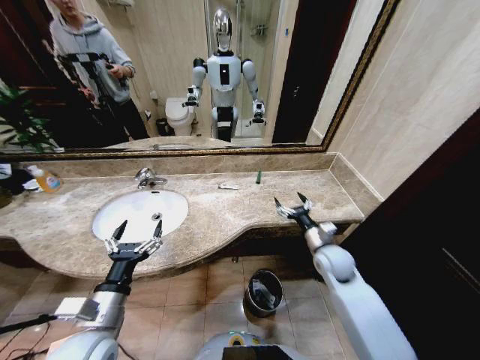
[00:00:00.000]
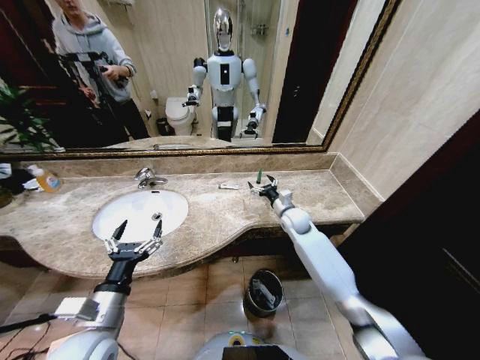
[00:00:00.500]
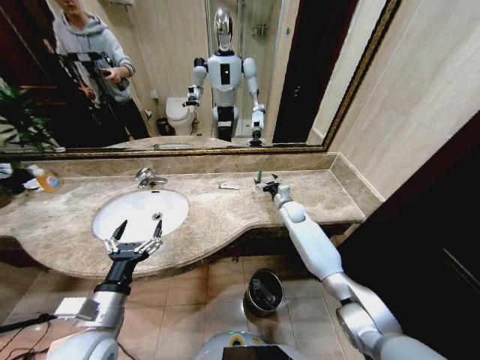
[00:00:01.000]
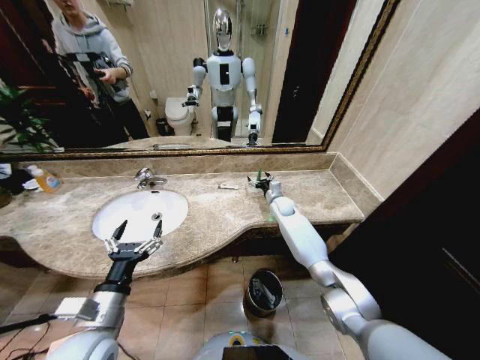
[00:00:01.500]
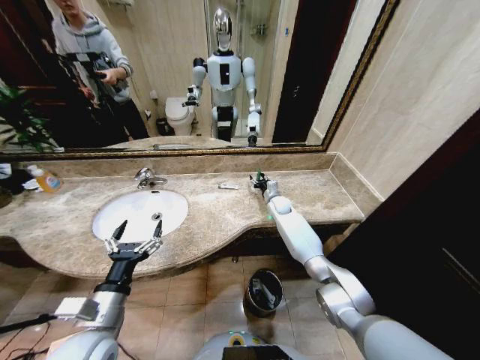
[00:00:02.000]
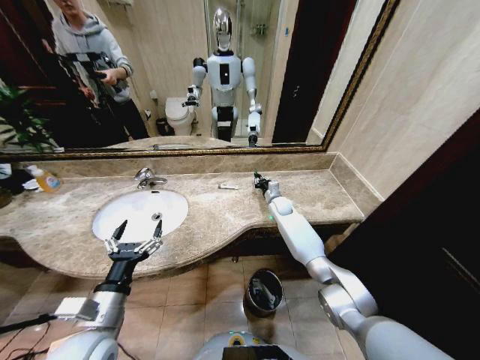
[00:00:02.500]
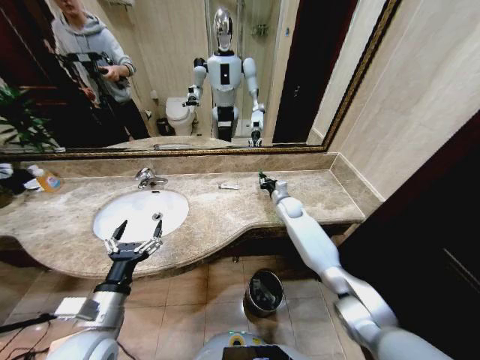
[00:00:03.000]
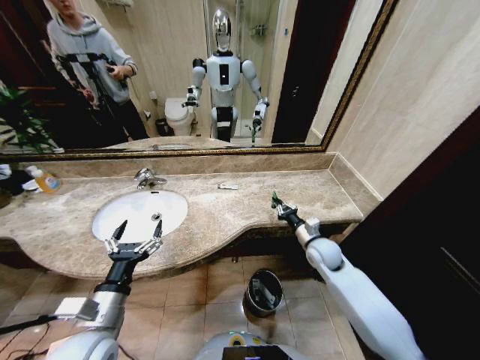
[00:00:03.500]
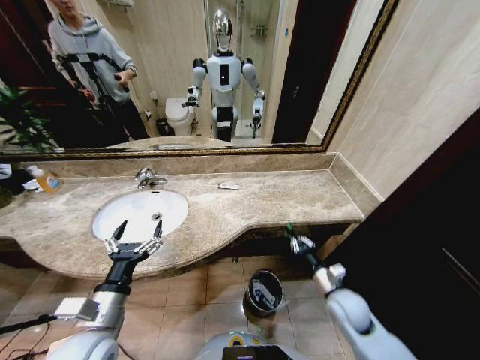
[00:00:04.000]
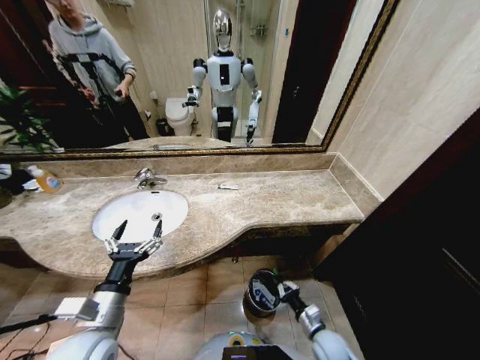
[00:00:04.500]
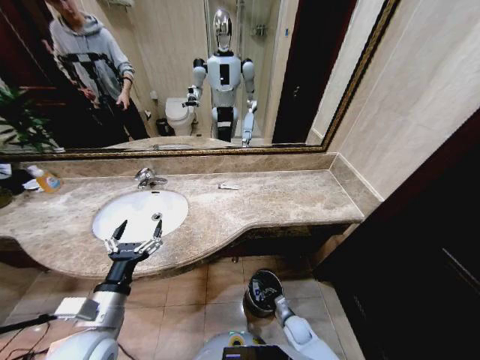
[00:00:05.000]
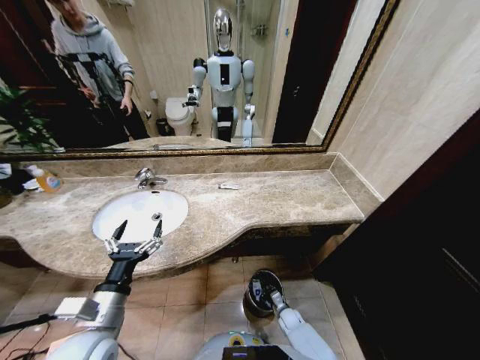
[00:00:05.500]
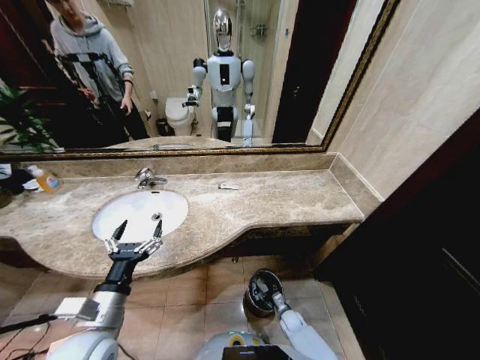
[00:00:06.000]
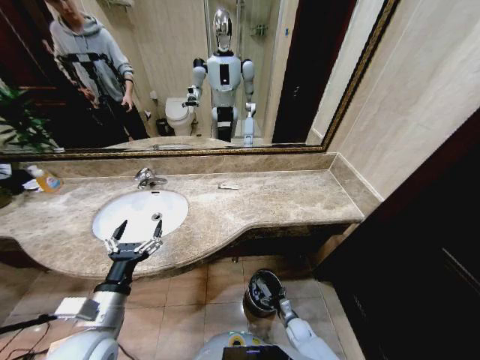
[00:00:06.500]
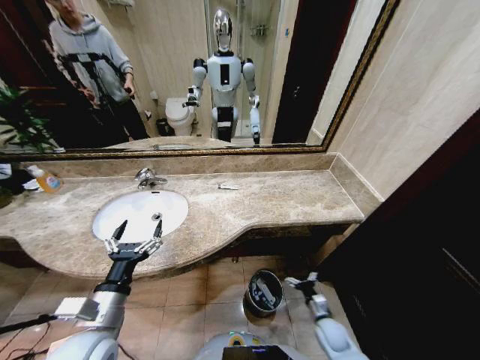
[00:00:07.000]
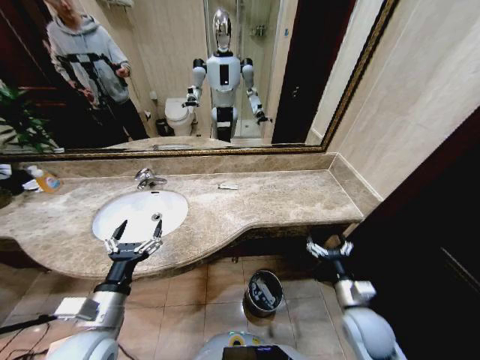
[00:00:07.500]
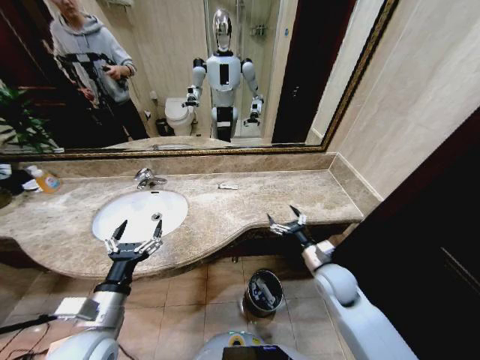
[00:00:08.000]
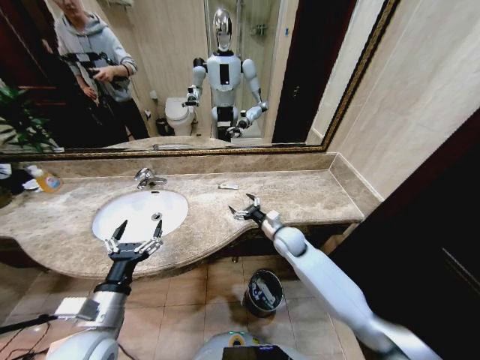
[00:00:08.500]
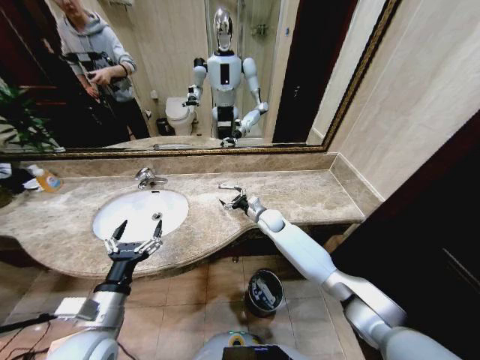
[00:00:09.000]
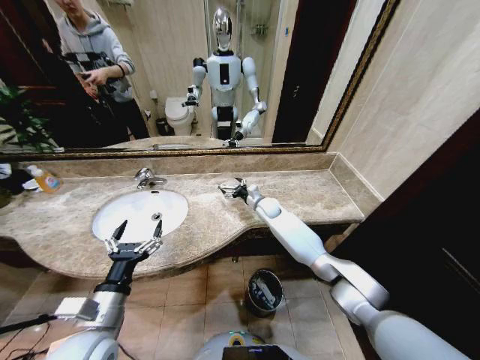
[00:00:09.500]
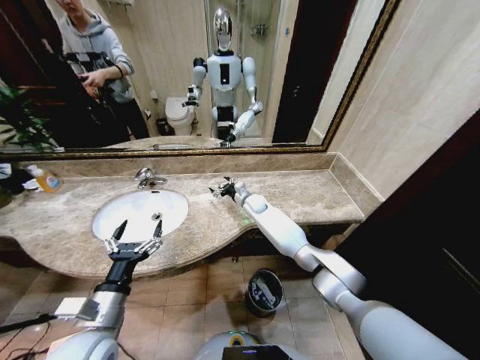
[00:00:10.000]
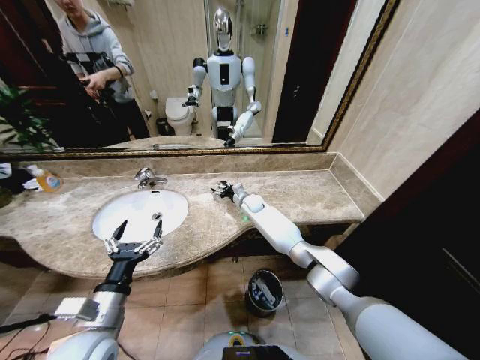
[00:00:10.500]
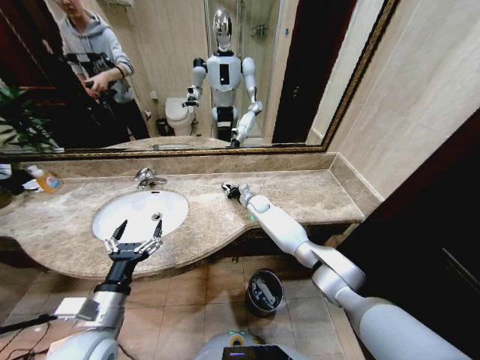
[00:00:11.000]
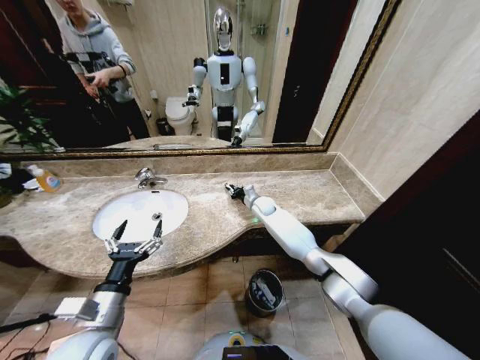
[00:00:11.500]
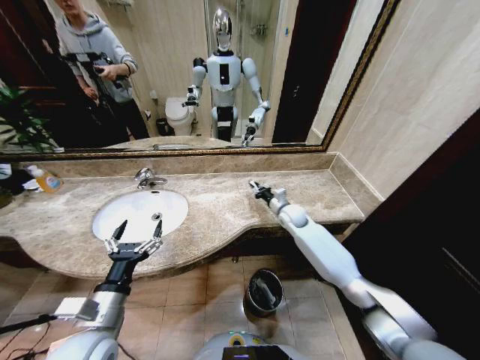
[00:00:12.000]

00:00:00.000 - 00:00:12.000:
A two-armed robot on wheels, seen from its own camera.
Task of the whole recording: Pick up the trash from the sink and place it in the trash bin.
00:00:00.000 - 00:00:02.000: The right gripper heads forward, covering approximately 25 cm, and closes up.
00:00:02.000 - 00:00:04.000: The right gripper goes roughly 35 cm backward, and closes its fingers.
00:00:04.000 - 00:00:06.000: The right gripper heads downward, covering about 30 cm, and opens.
00:00:06.000 - 00:00:08.000: The right gripper goes some 35 cm upward, and opens up.
00:00:08.000 - 00:00:10.000: The right gripper travels forward and to the left by roughly 35 cm.
00:00:10.000 - 00:00:12.000: The right gripper is displaced to the right and backward by roughly 15 cm, and closes.

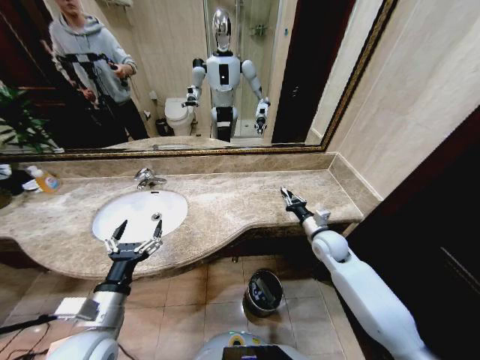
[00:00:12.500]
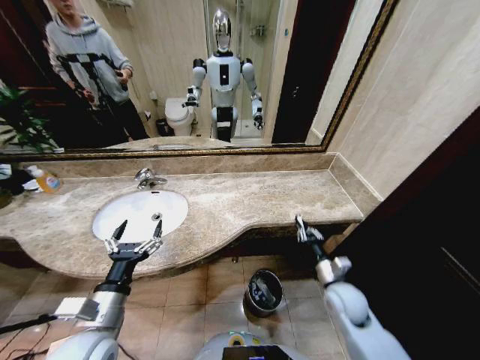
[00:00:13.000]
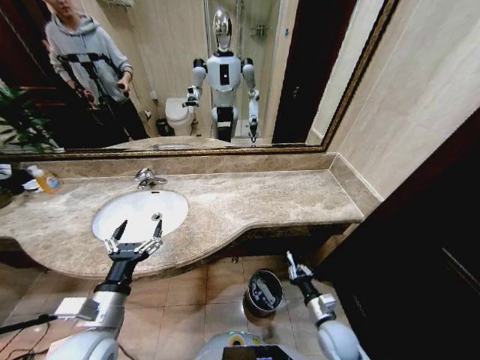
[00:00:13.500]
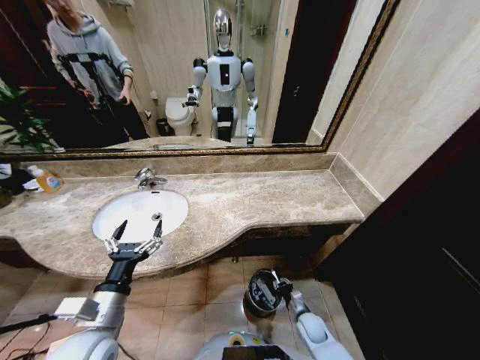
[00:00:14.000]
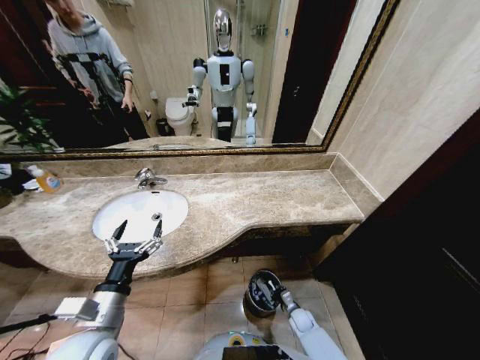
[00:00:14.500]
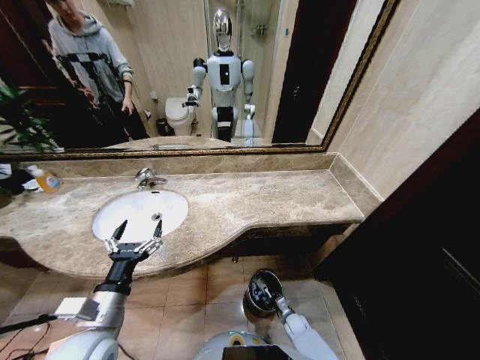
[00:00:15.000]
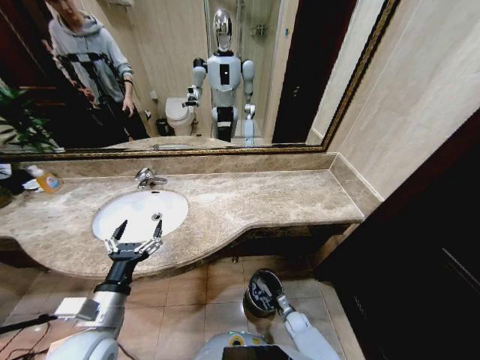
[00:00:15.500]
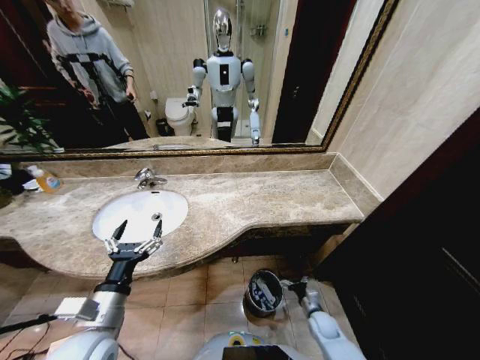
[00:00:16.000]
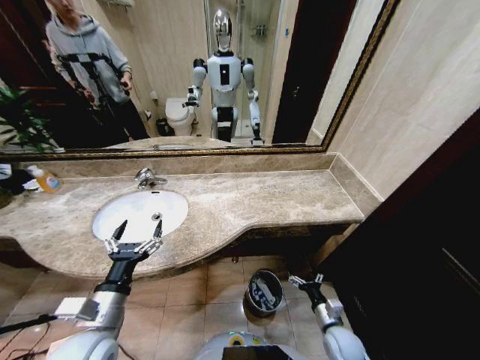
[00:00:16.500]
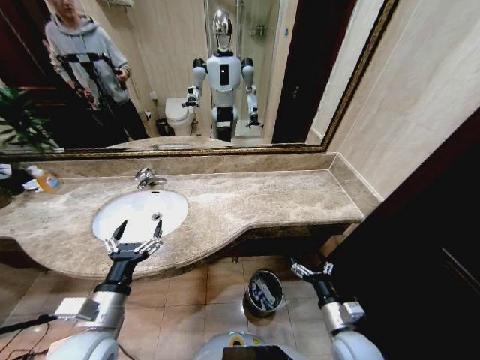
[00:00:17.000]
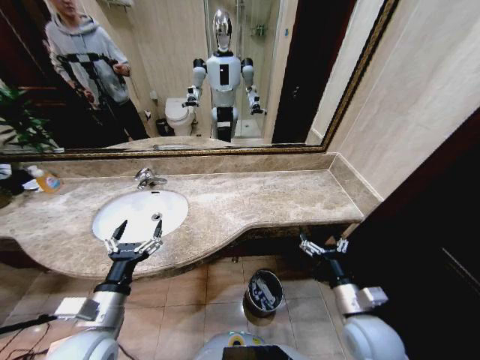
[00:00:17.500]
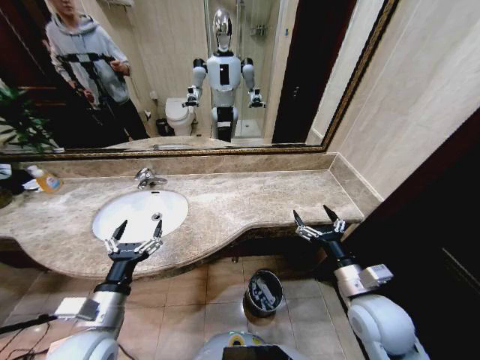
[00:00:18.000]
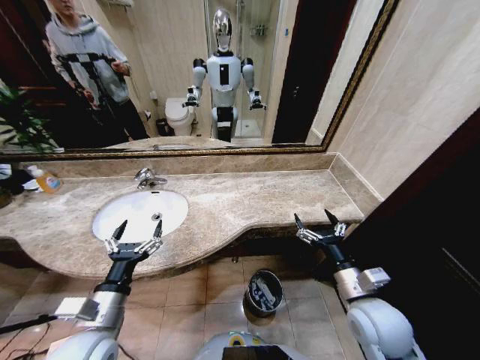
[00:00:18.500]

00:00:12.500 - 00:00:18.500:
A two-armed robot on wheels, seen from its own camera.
Task of the whole recording: Pick up the trash from the sink and place it in the trash bin.
00:00:12.500 - 00:00:14.500: The right gripper is displaced downward and backward by approximately 35 cm.
00:00:14.500 - 00:00:16.500: The right gripper heads upward and backward, covering roughly 20 cm, and opens.
00:00:16.500 - 00:00:18.500: The right gripper moves upward, some 25 cm.
